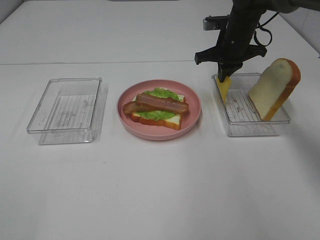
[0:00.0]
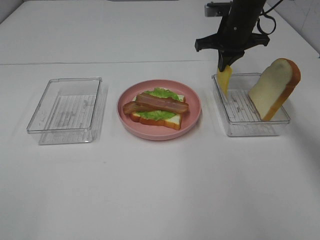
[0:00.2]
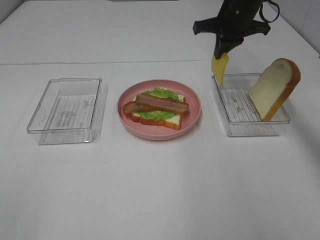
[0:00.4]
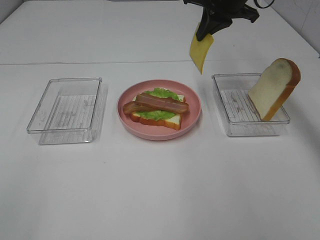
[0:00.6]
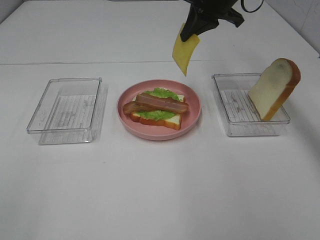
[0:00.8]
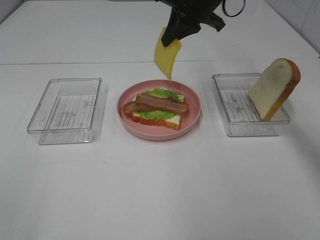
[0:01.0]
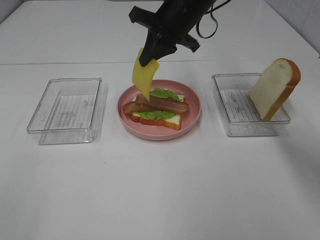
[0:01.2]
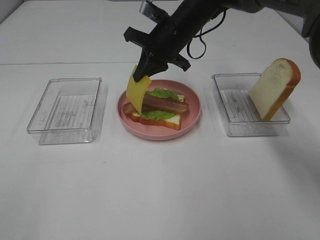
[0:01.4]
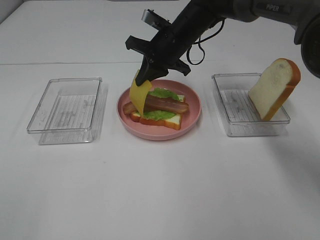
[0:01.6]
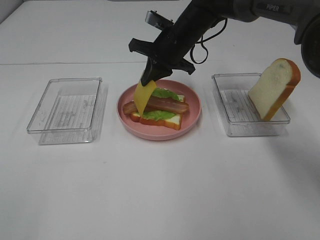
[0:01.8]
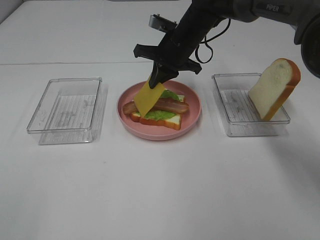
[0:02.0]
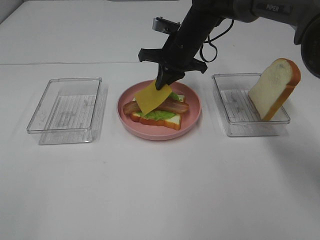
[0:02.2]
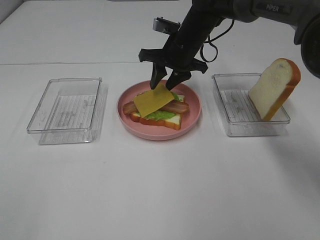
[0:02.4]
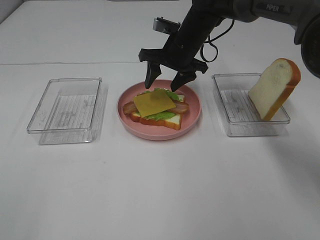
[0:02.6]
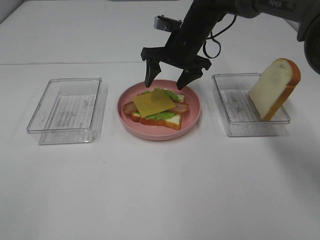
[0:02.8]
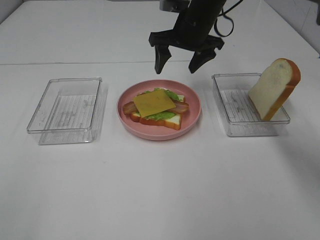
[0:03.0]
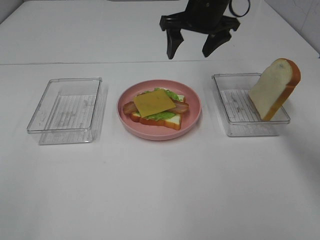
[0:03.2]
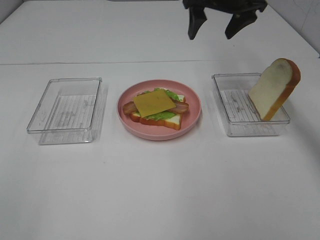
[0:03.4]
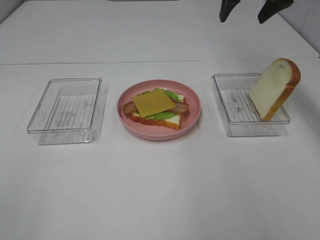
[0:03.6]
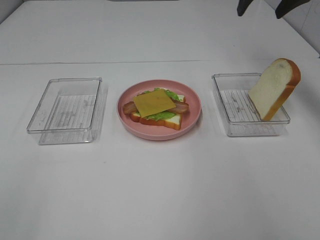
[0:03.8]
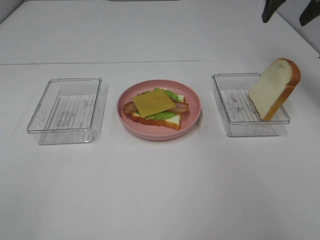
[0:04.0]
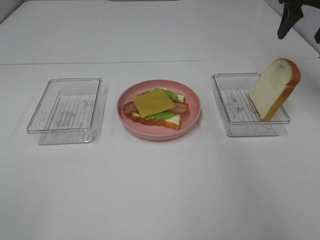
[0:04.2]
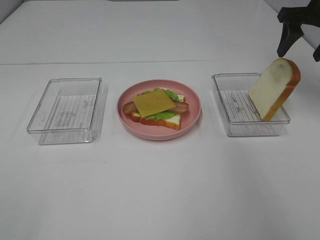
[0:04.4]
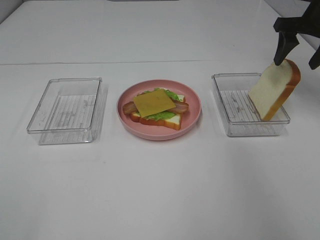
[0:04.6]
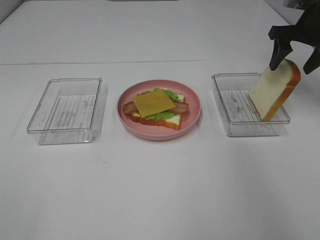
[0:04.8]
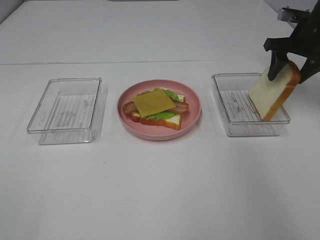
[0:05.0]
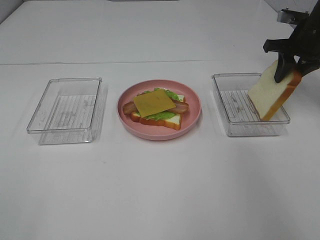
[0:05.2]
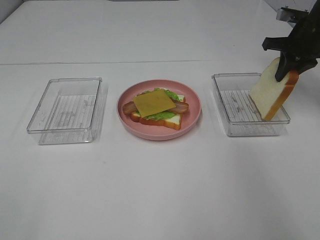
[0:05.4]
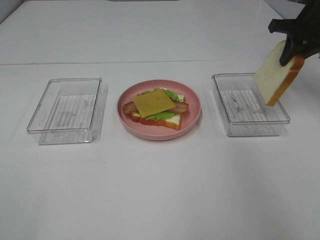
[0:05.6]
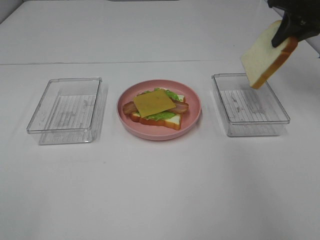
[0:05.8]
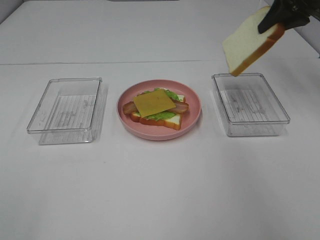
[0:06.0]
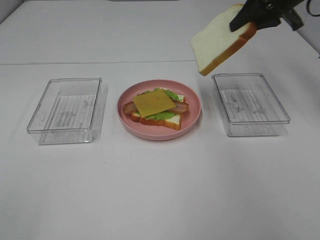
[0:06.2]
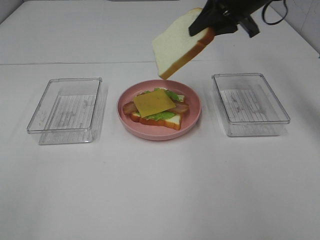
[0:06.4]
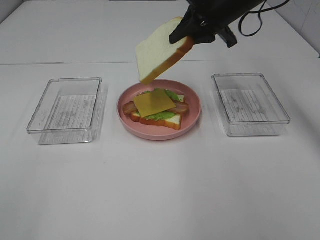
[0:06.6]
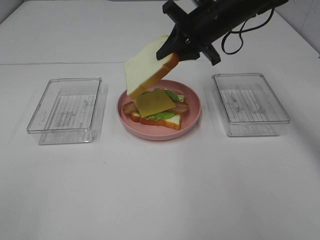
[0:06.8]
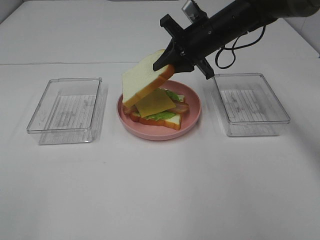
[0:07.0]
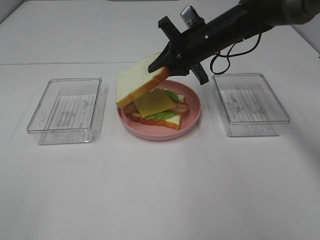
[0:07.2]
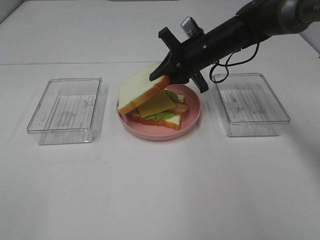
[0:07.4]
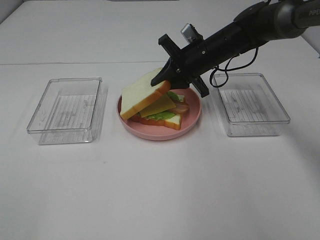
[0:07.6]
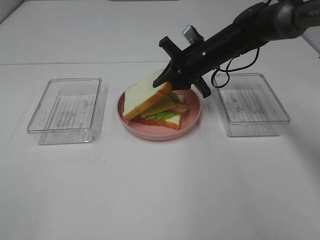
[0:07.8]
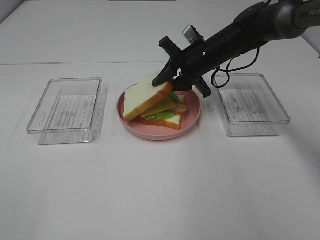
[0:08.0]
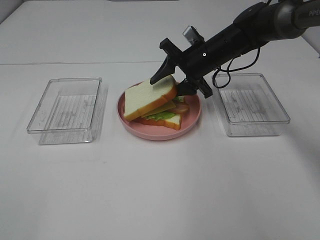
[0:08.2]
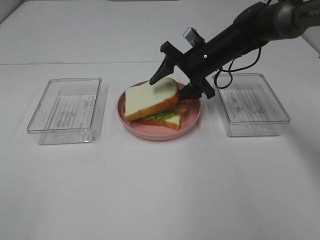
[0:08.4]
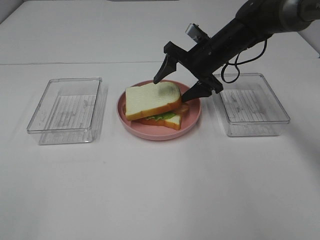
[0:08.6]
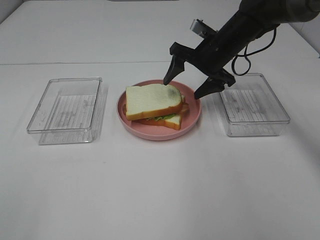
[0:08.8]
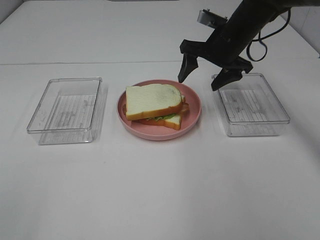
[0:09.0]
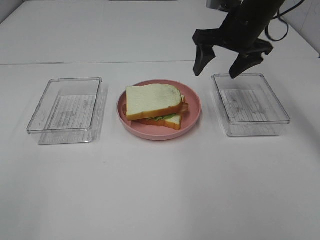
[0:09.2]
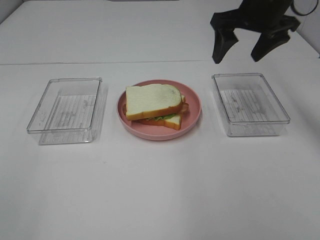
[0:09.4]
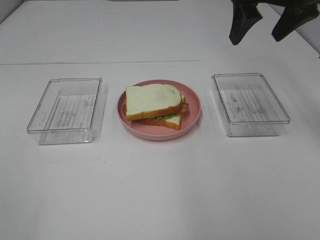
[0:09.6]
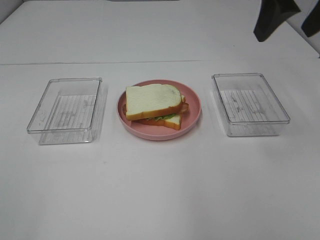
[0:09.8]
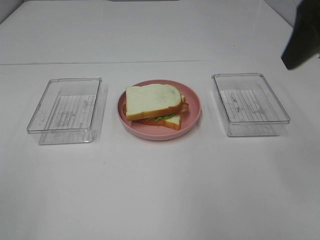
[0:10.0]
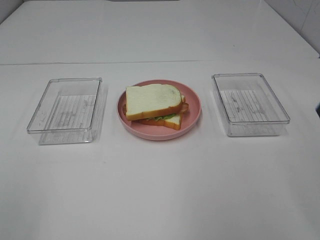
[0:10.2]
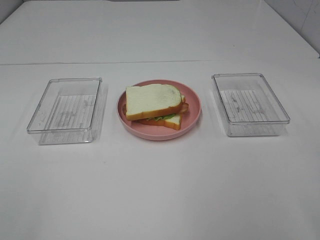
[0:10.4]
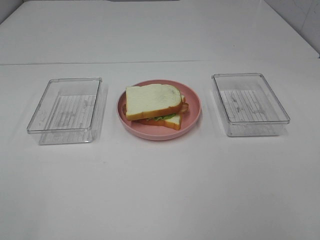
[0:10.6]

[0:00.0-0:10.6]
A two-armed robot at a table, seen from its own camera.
Task of the whole recording: Make sandwiches.
Step, 0:00.0 to 0:02.8: Right hand:place the cheese slice on top of the bacon.
Step, 0:03.0 to 0:05.2: Right hand:grab the bread slice.
Step, 0:05.4 to 0:09.0: Right hand:place the bread slice on the cheese slice.
0:00.0 to 0:01.6: The right gripper goes some 10 cm to the left.
0:01.6 to 0:03.0: The right gripper moves roughly 5 cm, and opens its fingers.
0:03.0 to 0:04.6: The right gripper moves to the right, some 25 cm.
0:04.6 to 0:06.0: The right gripper travels upward by roughly 5 cm, and closes its fingers.
0:06.0 to 0:07.6: The right gripper shifts approximately 25 cm to the left and downward.
0:07.6 to 0:09.0: The right gripper moves upward, roughly 5 cm, and opens its fingers.
0:09.0 to 0:10.6: The right gripper heads backward, covering approximately 40 cm.

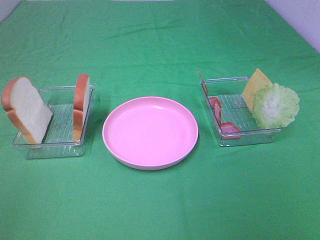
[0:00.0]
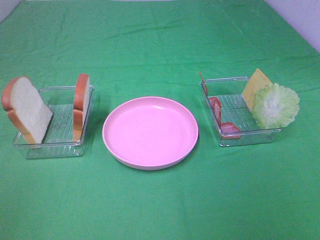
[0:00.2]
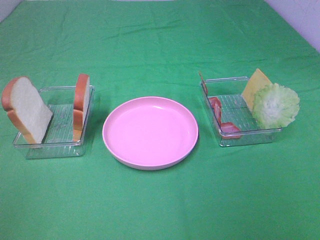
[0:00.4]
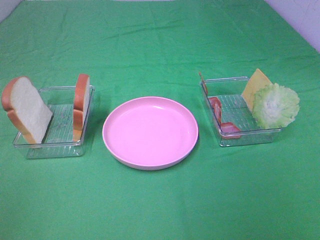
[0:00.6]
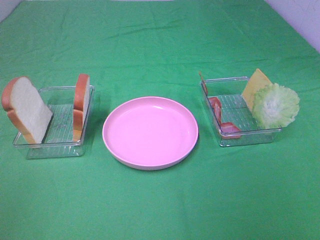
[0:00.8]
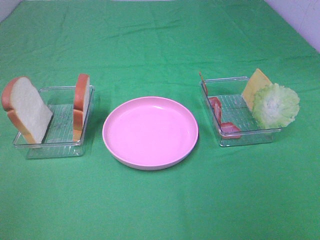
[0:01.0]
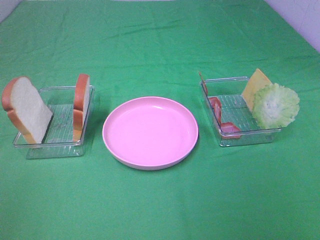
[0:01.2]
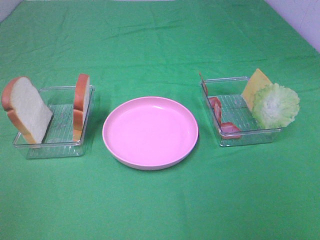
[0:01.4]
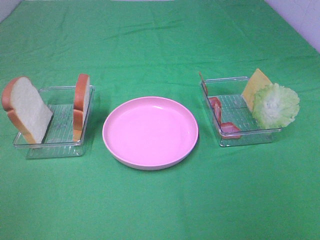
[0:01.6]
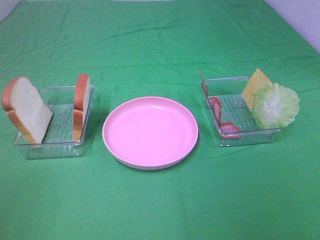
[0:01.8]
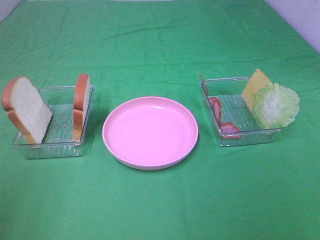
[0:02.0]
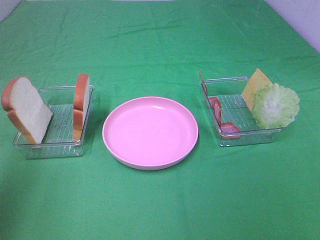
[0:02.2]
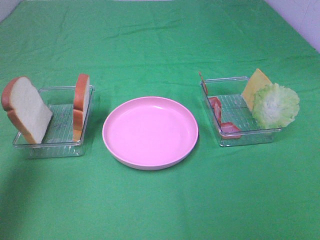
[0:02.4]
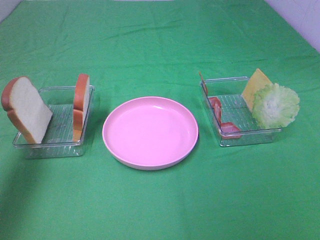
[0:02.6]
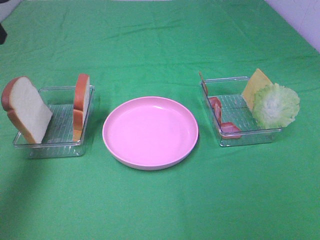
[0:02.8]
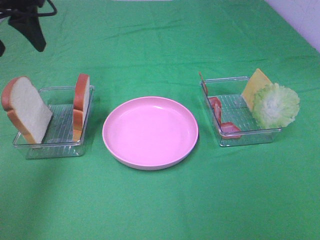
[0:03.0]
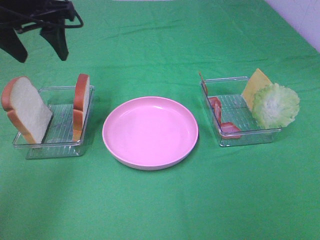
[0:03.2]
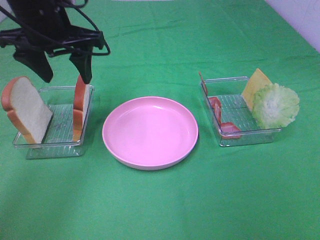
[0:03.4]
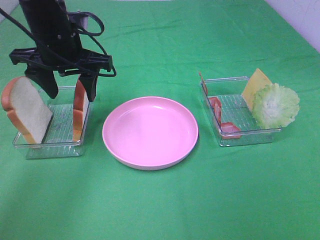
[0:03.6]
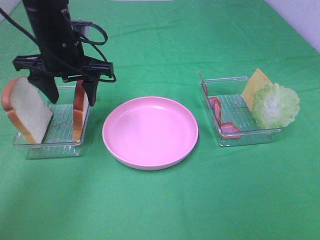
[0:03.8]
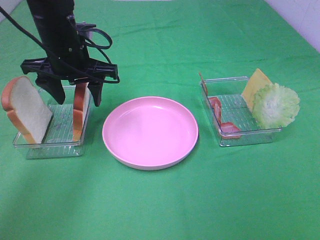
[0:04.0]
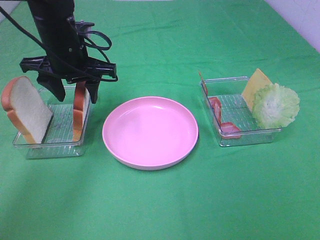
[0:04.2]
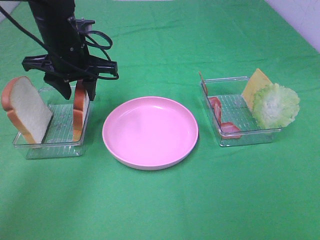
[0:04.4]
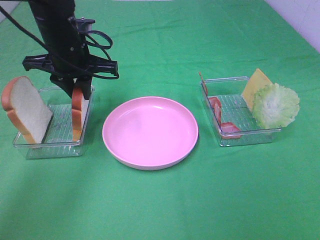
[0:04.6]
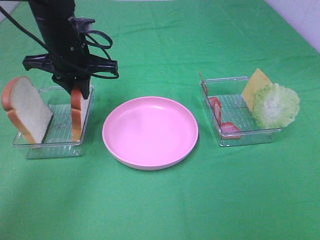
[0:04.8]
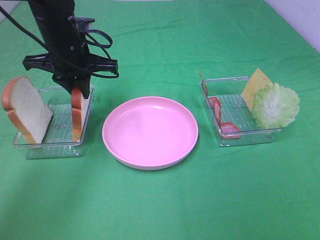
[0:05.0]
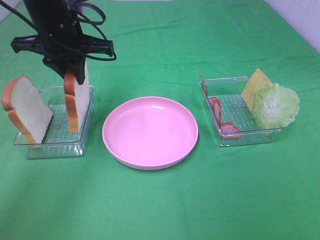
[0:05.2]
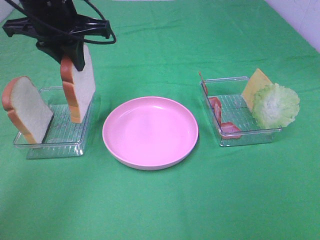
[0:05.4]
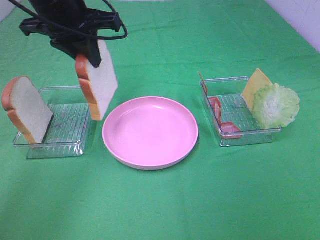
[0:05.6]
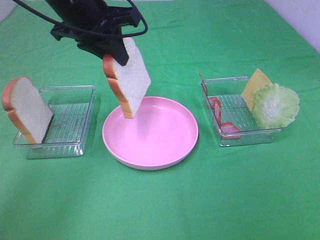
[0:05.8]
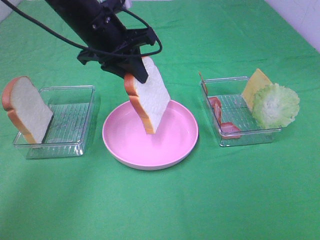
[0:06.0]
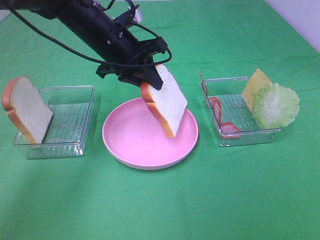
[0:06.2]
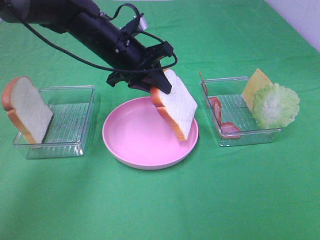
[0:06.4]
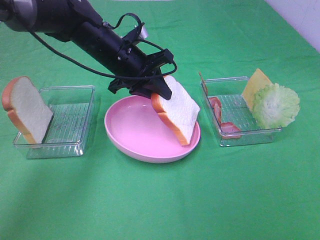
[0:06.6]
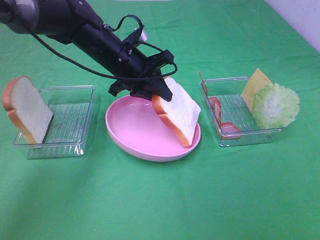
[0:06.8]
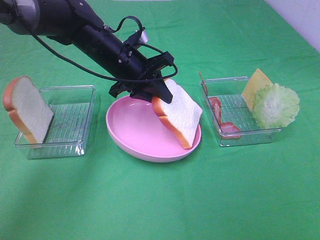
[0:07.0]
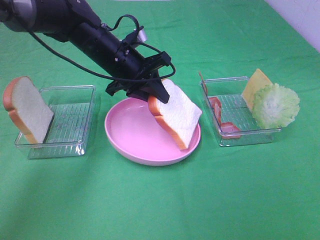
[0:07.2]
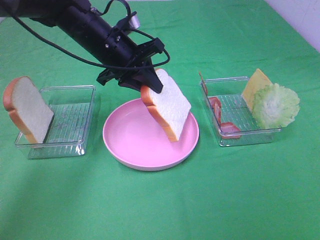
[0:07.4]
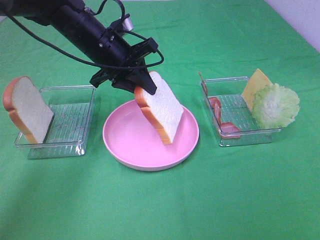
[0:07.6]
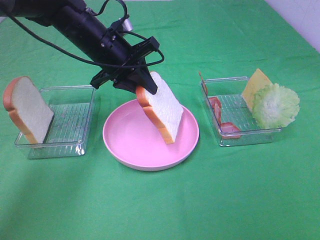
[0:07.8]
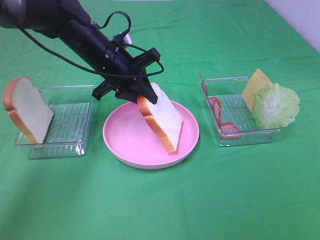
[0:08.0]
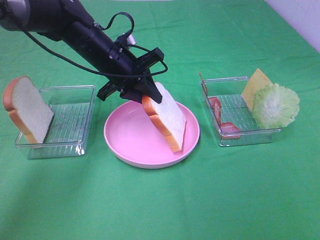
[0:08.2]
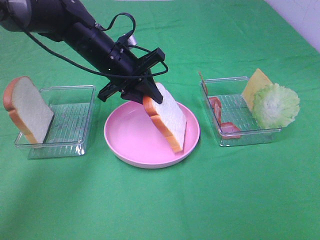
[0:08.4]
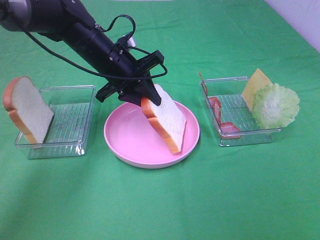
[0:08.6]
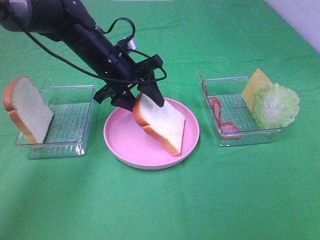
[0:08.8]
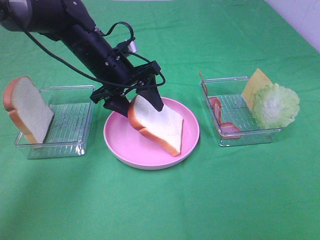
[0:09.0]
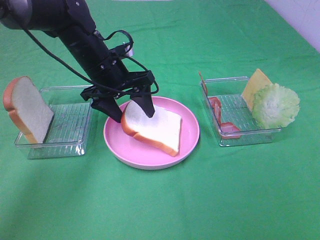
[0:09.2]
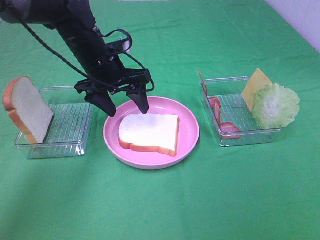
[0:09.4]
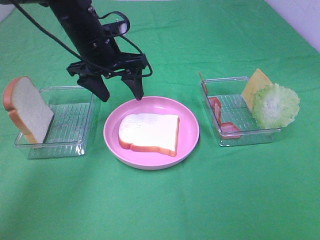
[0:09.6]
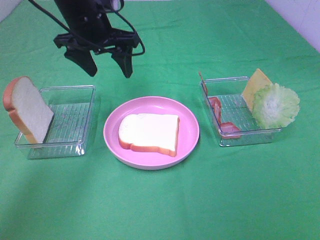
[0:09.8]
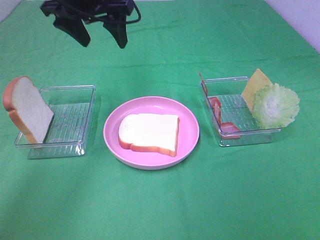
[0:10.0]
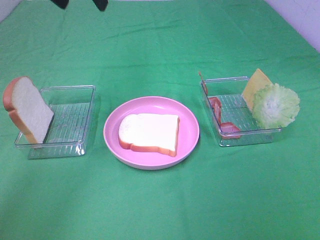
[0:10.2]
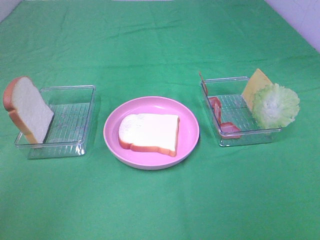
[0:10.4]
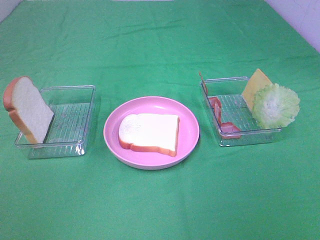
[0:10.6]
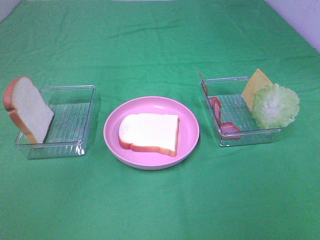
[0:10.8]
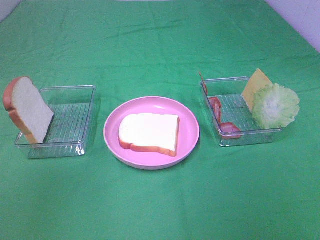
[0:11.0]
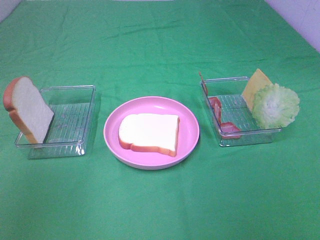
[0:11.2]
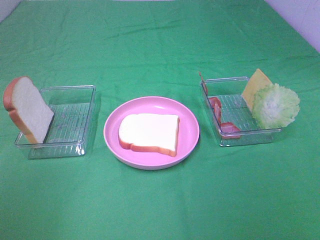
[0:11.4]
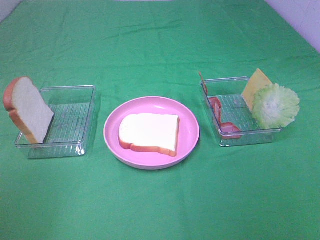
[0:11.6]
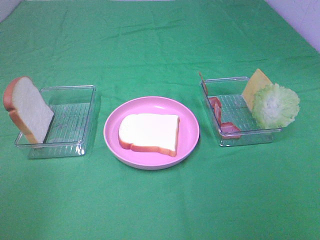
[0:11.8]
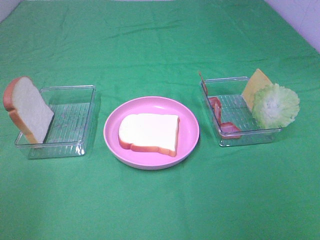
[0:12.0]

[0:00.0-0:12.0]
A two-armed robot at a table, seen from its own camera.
Task of the whole recording: Make sandwiches.
Step, 0:00.0 to 0:05.0: Left hand:grab the bread slice.
Step, 0:05.2 to 0:09.4: Left hand:place the bread slice on the plate.
0:00.0 to 0:01.6: Neither gripper changes place.
0:01.6 to 0:03.0: The left gripper heads forward, covering roughly 35 cm.
0:03.0 to 0:04.4: The left gripper is displaced downward and to the right by roughly 15 cm.
0:04.4 to 0:06.0: The left gripper goes roughly 5 cm to the right, travels upward and back again, about 10 cm each way, and closes up.
0:07.6 to 0:09.0: The left gripper opens.
0:09.0 to 0:10.4: The left gripper goes some 30 cm upward.
